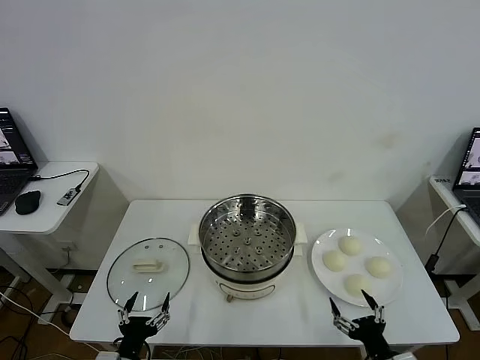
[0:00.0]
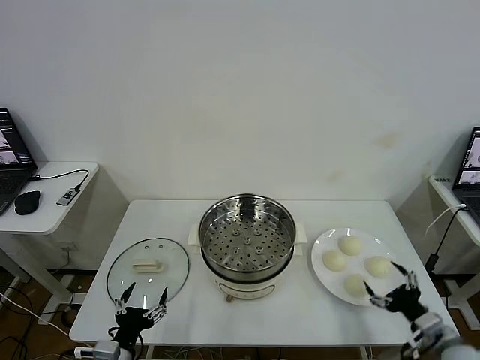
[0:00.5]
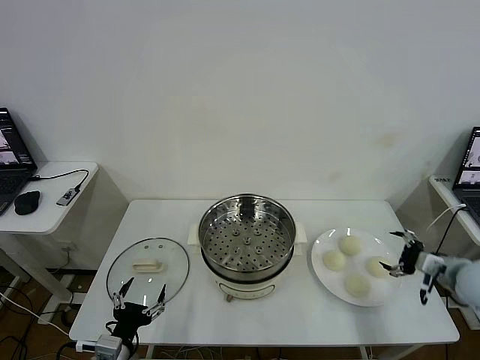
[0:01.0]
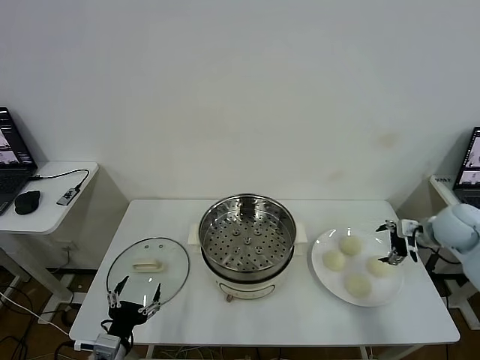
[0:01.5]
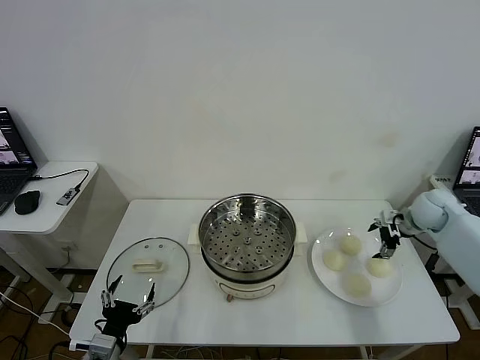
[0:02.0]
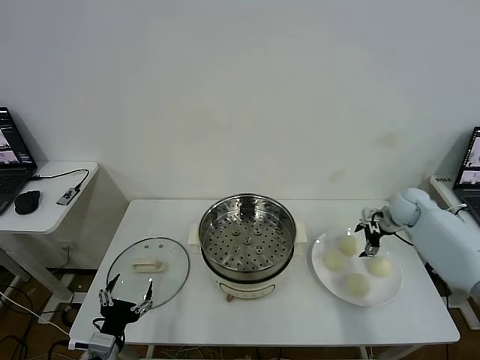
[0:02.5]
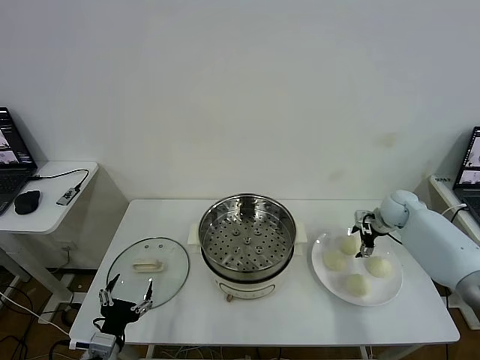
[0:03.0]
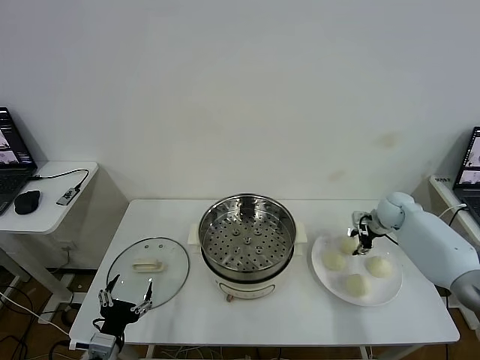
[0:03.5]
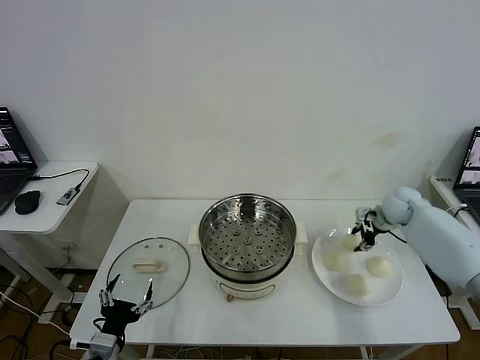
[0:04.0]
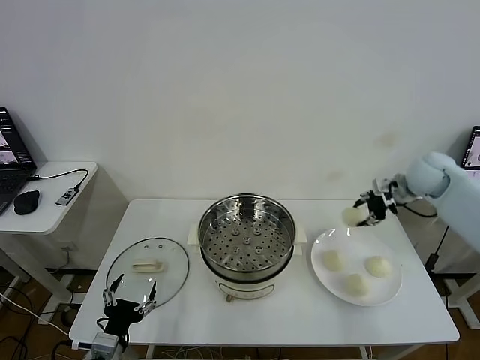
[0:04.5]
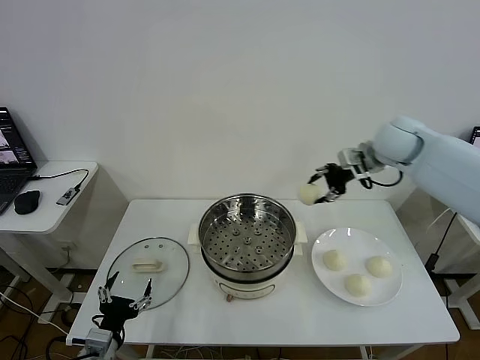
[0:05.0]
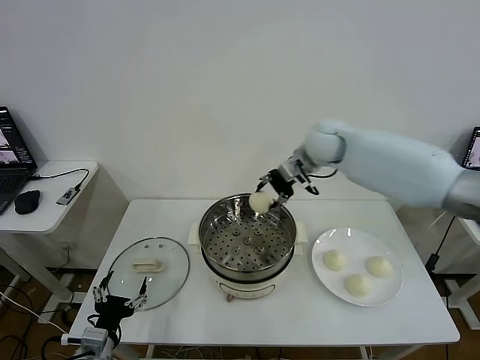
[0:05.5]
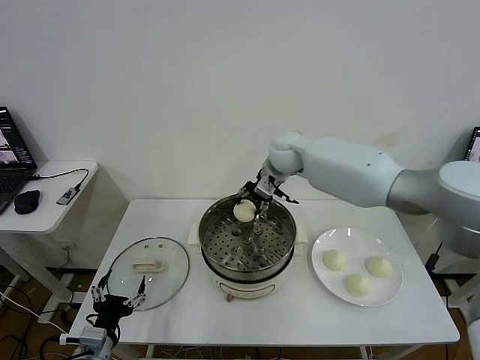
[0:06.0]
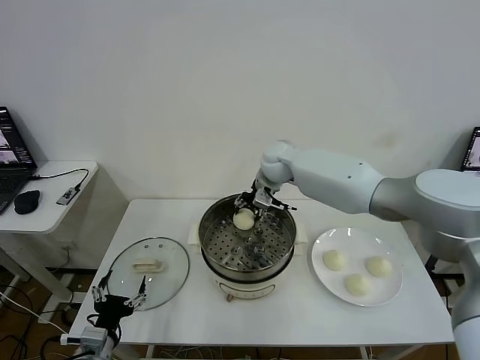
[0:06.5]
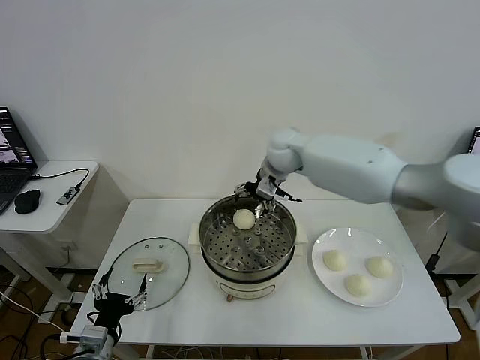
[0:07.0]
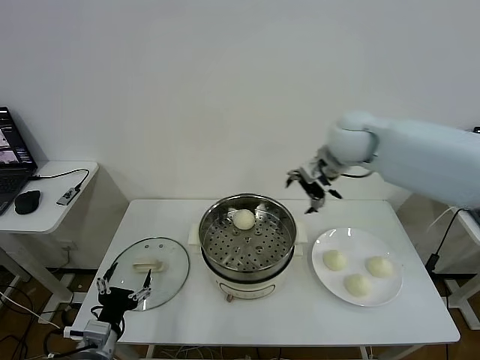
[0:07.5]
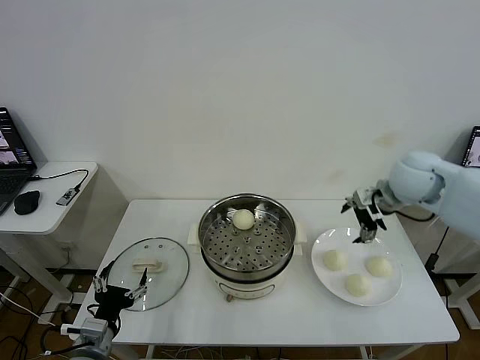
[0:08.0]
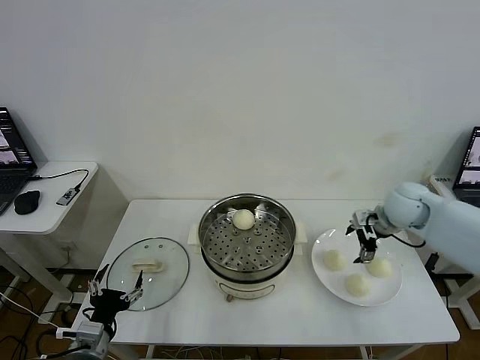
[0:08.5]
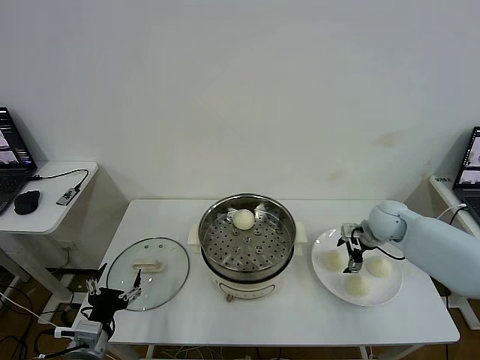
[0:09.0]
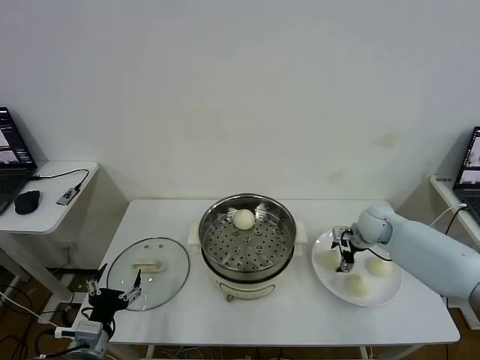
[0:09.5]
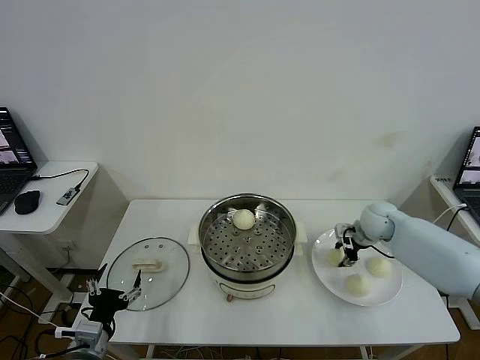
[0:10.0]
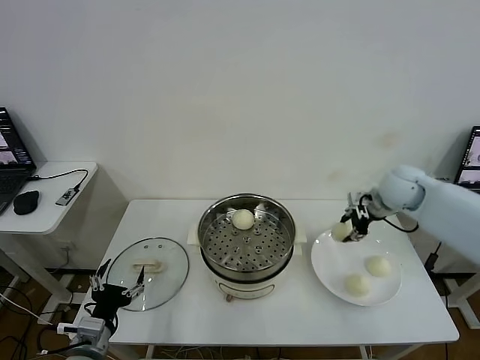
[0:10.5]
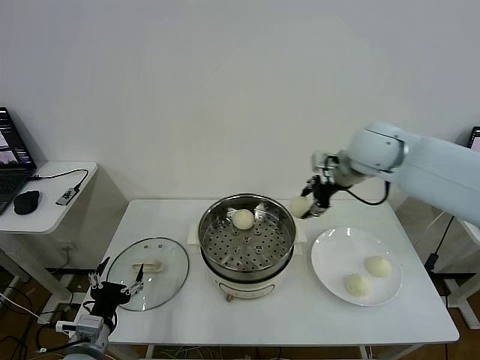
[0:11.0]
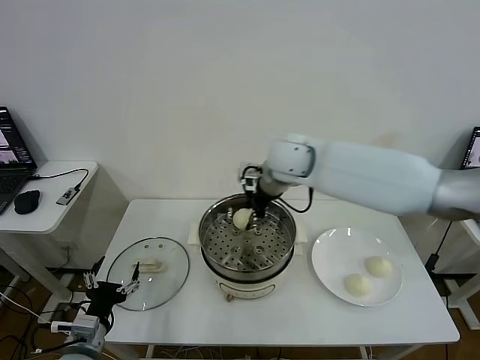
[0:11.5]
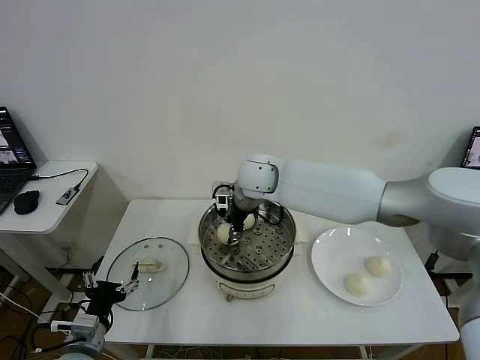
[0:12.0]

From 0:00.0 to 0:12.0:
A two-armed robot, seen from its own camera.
Task of the whole recording: take steamed baozi put them in steamer then cover it.
Step, from 0:00.0 to 0:03.0: Grasp the baozi in the plate with right gripper.
Step, from 0:03.5 to 0:06.5: Place the baozi on the steamer with right gripper.
Step, from 0:07.0 to 0:09.5: Grasp the baozi in the plate with right gripper.
From 0:02.0 to 0:04.0: The right gripper closes.
From 0:04.0 to 0:06.0: The right gripper moves to the left, approximately 30 cm.
From 0:06.0 to 0:08.0: The right gripper is displaced to the right and backward by some 30 cm, and opens.
From 0:08.0 to 0:10.0: The right gripper is displaced downward by some 15 cm, and closes its fingers.
From 0:10.0 to 0:12.0: The right gripper shifts about 35 cm to the left.

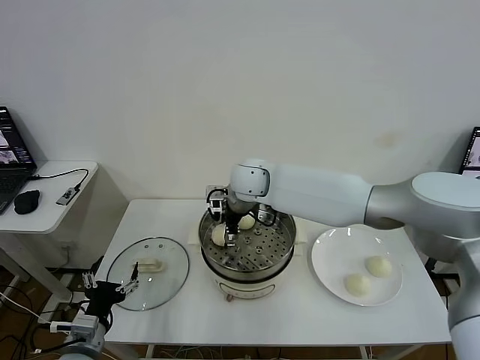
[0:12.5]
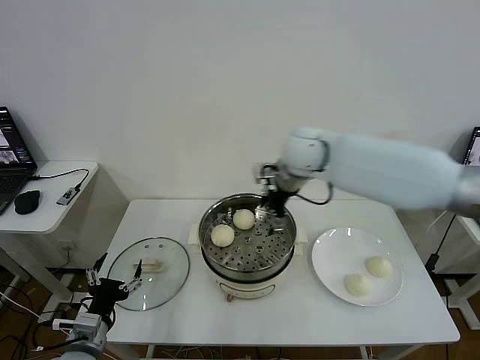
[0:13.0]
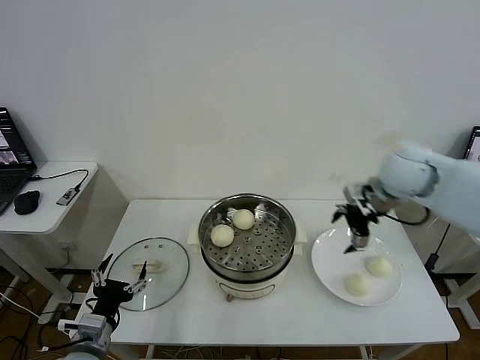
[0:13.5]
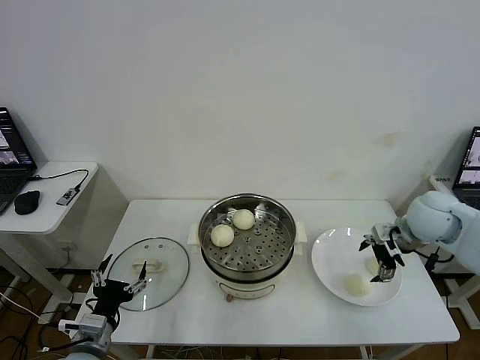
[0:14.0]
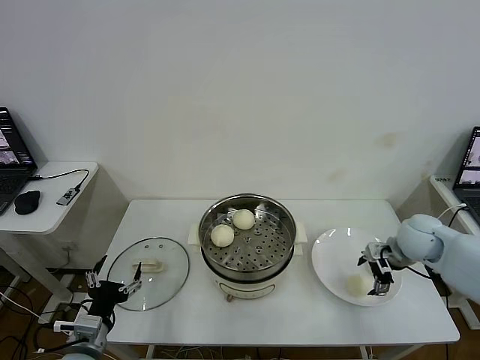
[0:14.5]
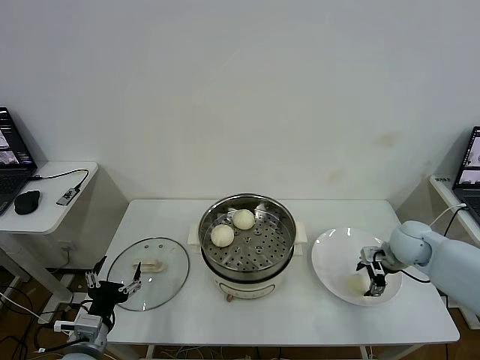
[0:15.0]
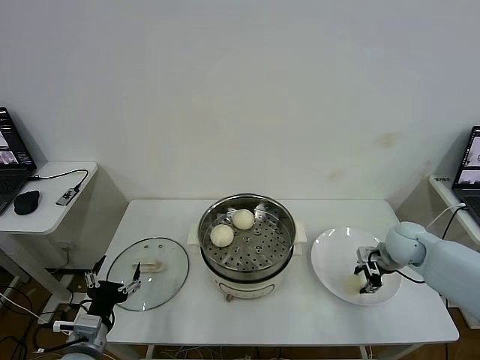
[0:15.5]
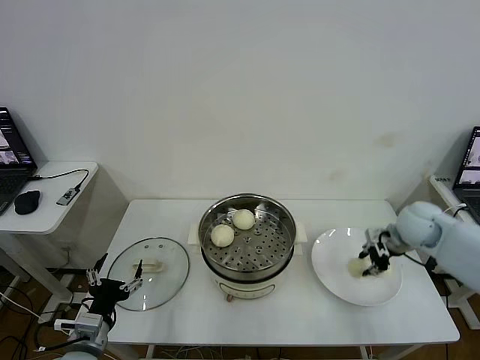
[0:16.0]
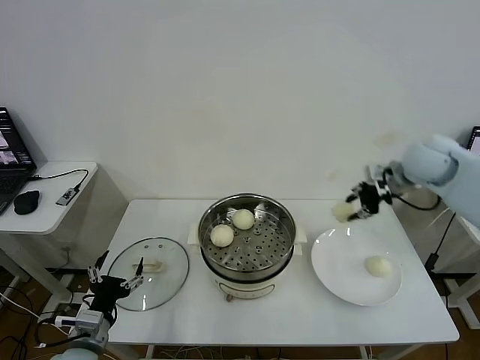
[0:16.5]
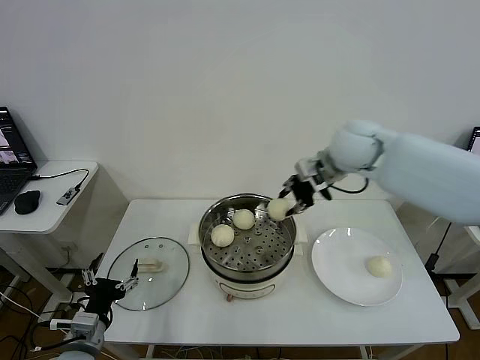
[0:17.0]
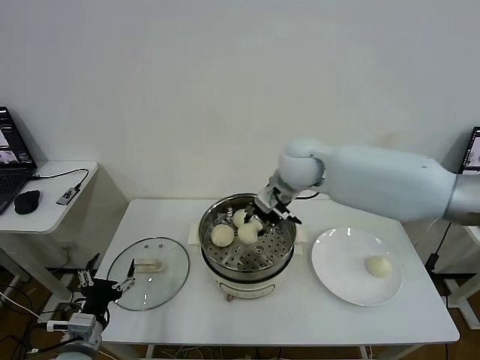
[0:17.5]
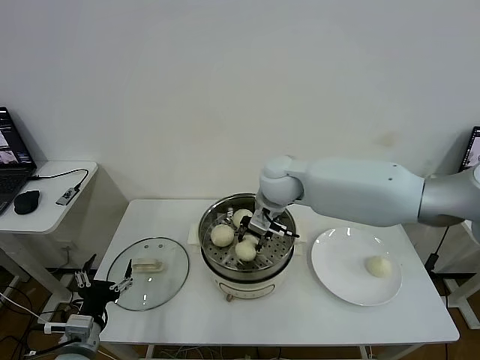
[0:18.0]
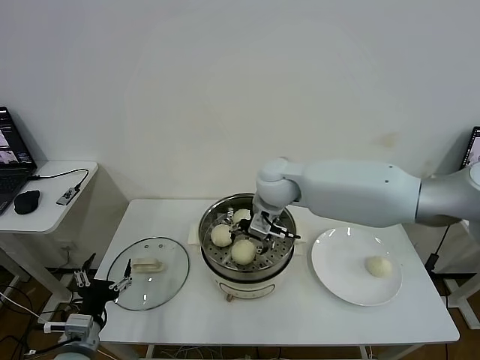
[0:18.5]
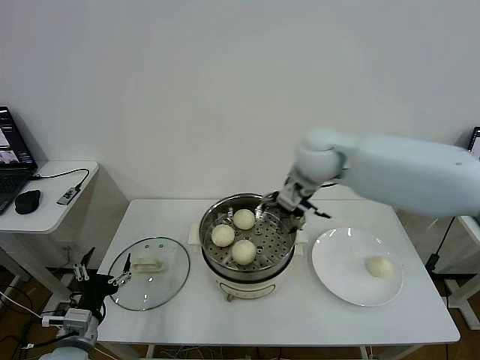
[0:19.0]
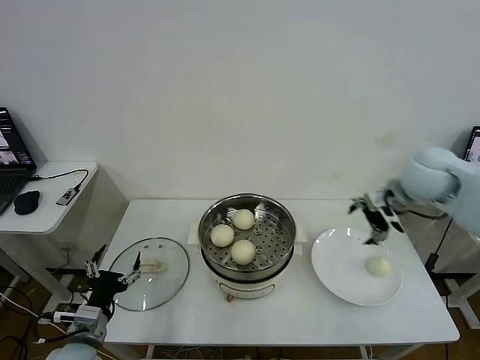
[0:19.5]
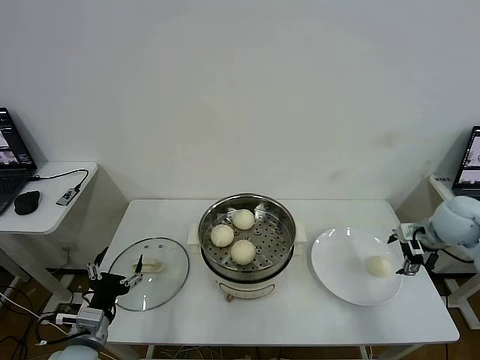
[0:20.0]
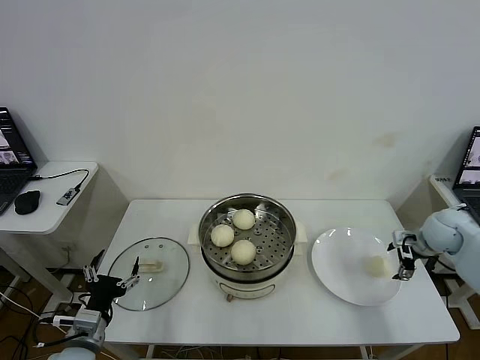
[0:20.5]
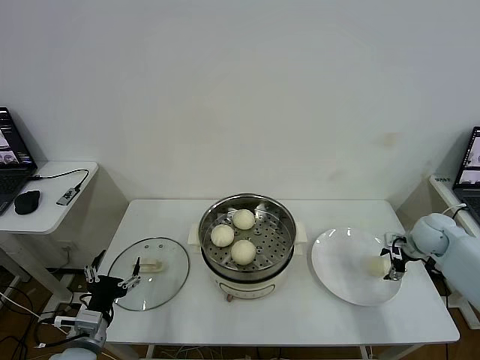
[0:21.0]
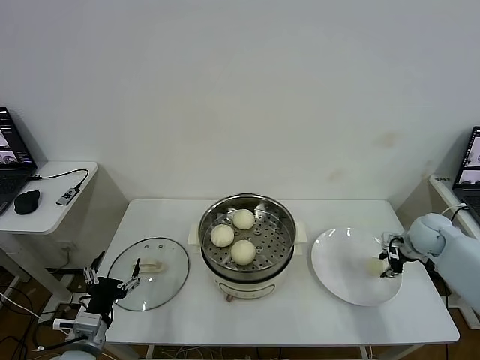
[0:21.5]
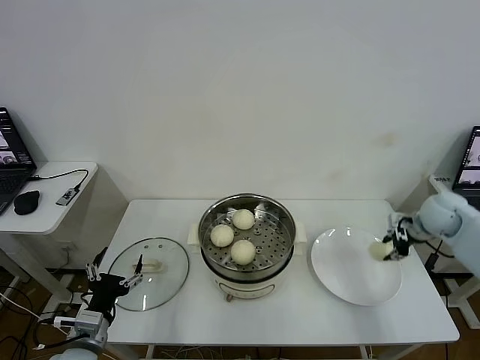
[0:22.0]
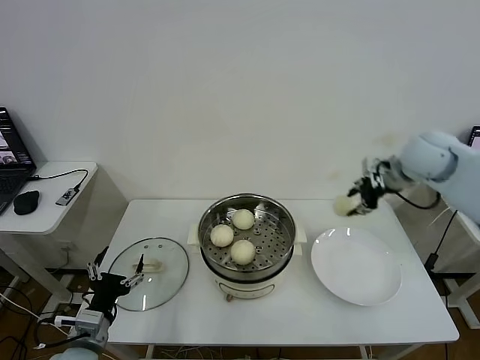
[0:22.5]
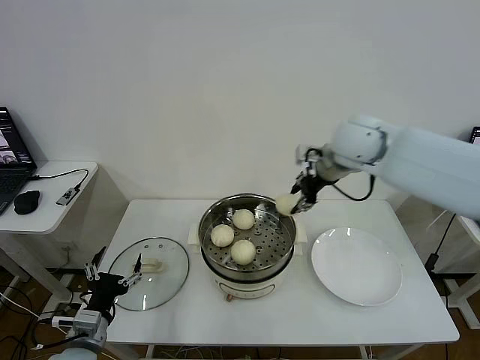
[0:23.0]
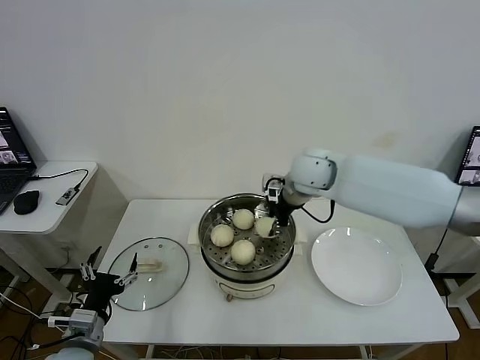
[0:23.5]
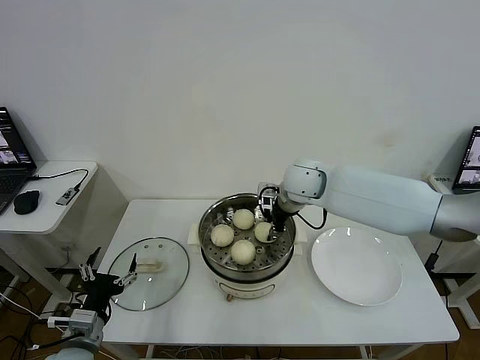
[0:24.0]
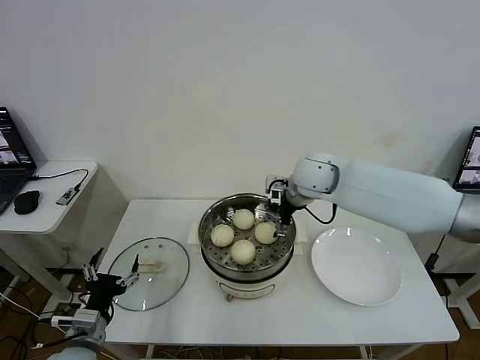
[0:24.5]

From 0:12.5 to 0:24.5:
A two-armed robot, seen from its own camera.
Task of the whole recording: take steamed baozi put them in steamer then cover it.
Step, from 0:13.0 to 0:15.0: Grasp the baozi in the plate with right gripper.
Step, from 0:16.0 to 0:18.5: Place the baozi on the steamer with right gripper.
Step, from 0:19.0 to 0:21.0: Grasp the baozi in the plate with right gripper.
Step, from 0:22.0 to 0:24.5: Place the baozi on the steamer with right gripper.
From 0:12.5 to 0:14.5: The right gripper moves to the right, approximately 35 cm.
From 0:14.5 to 0:16.5: The right gripper is displaced upward and forward by approximately 20 cm, and closes up.
From 0:16.5 to 0:18.5: The right gripper moves to the left, approximately 30 cm, and opens up.
From 0:18.5 to 0:20.5: The right gripper shifts about 40 cm to the right.
From 0:20.5 to 0:22.5: The right gripper goes about 20 cm upward and to the left, and closes.
From 0:22.5 to 0:24.5: The right gripper goes roughly 20 cm to the left, and opens up.

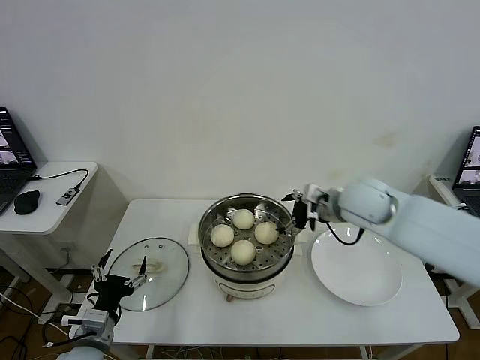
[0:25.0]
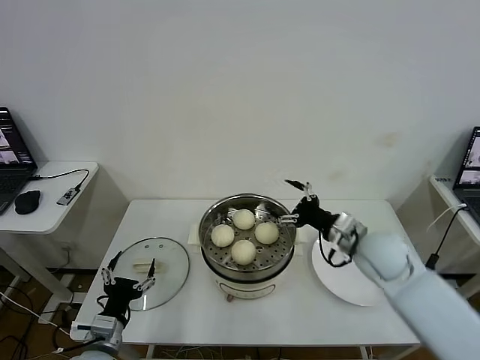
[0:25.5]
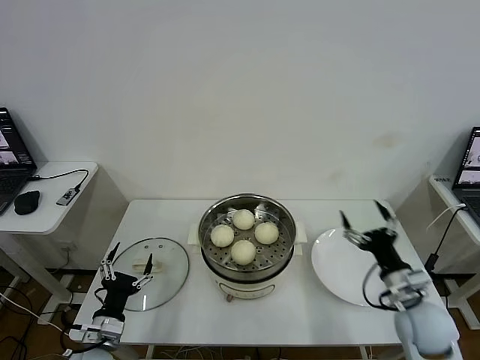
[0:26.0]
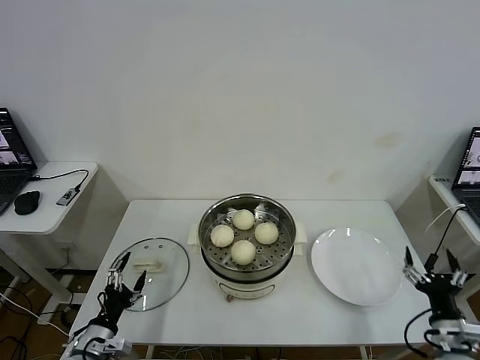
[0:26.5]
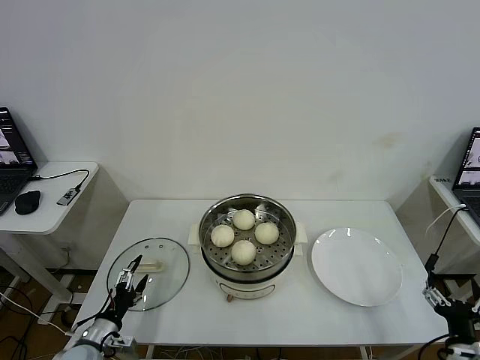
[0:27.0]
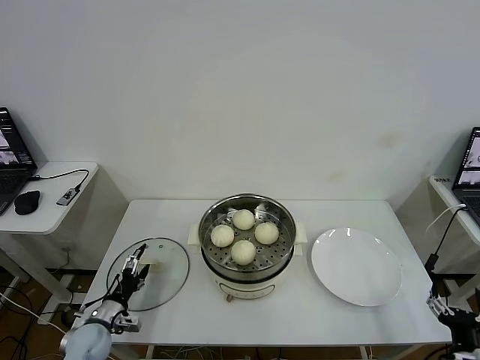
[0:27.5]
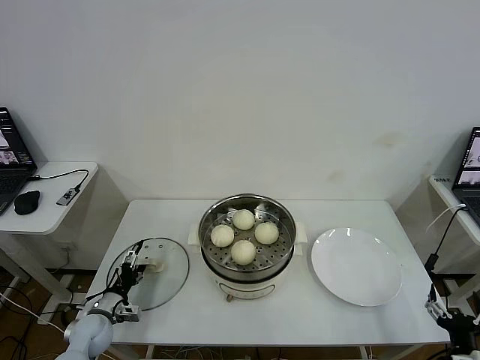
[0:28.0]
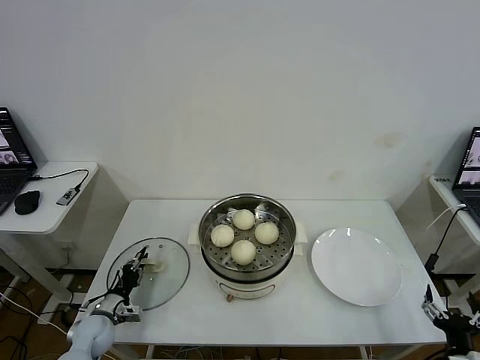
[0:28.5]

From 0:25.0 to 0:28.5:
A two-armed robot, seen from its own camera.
Task of the whole recording: take steamed baozi put them in steamer then cover it.
From 0:25.0 to 0:27.0: The right gripper goes approximately 40 cm backward, downward and to the right. Meanwhile the left gripper travels downward by approximately 10 cm.
From 0:27.0 to 0:28.5: The left gripper heads forward, covering approximately 10 cm, and closes.
